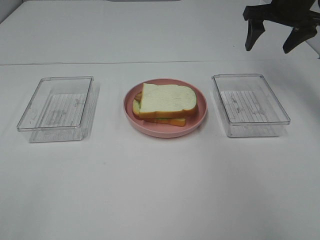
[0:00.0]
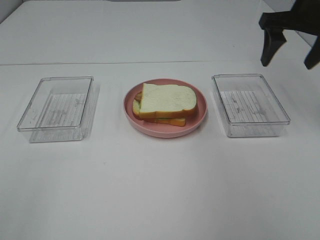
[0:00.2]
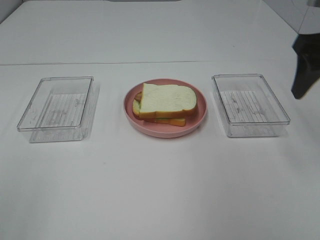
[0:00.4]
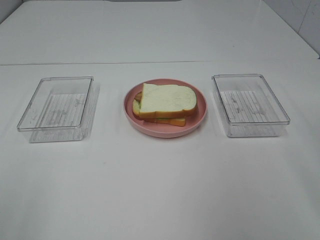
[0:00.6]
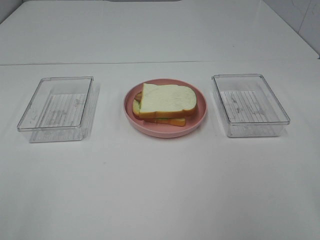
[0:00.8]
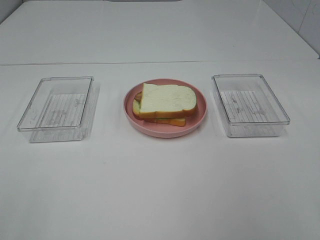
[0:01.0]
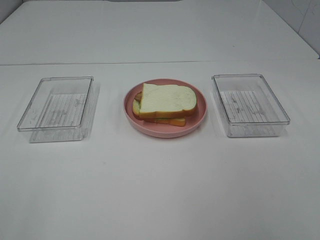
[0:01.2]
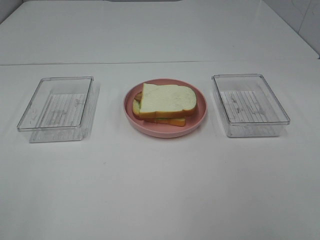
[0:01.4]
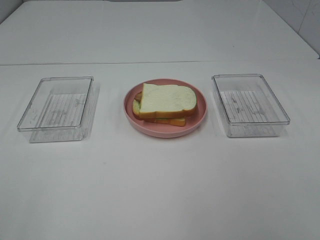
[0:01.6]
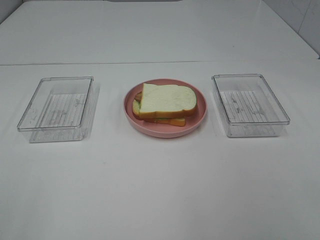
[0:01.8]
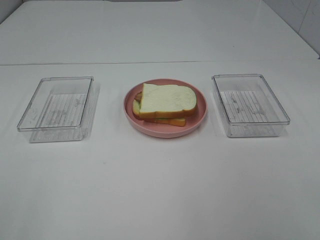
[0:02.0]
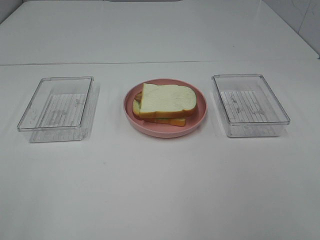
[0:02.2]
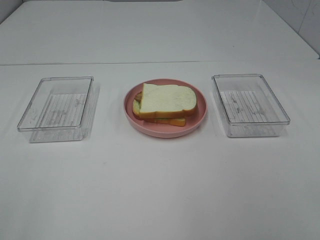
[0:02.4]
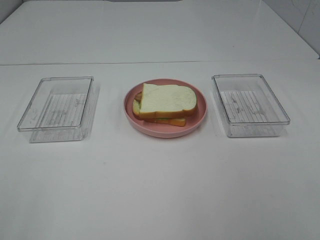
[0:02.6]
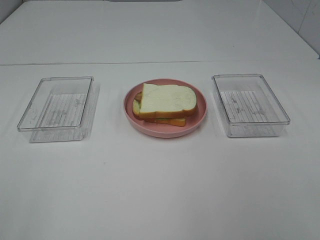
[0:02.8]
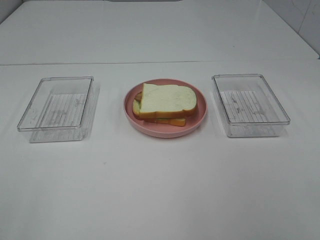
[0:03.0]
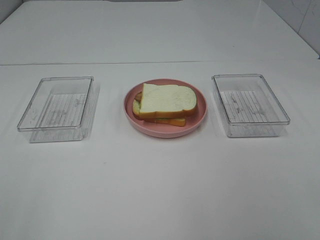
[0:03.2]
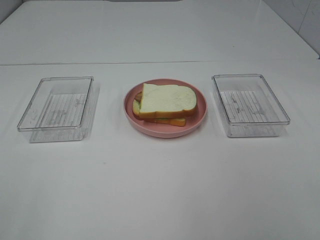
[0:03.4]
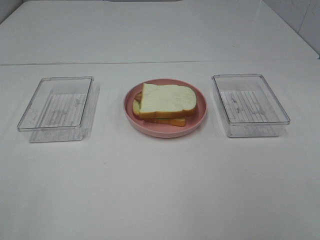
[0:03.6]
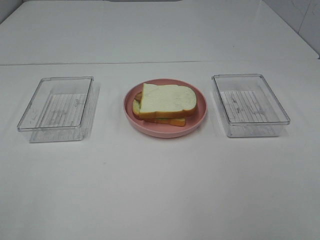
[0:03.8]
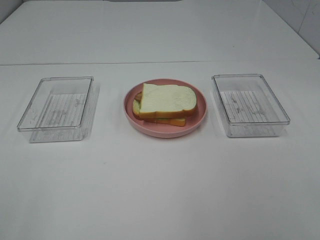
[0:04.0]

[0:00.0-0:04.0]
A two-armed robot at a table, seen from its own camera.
Task of the whole recording: Make sandwiches.
0:00.0 to 0:01.4: The right gripper moves backward, roughly 40 cm.
0:02.6 to 0:04.0: Neither gripper changes place.

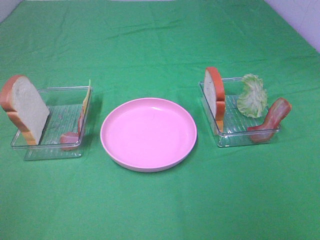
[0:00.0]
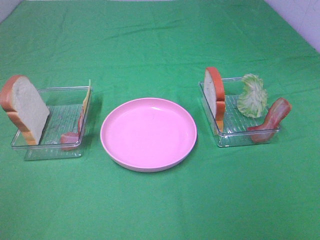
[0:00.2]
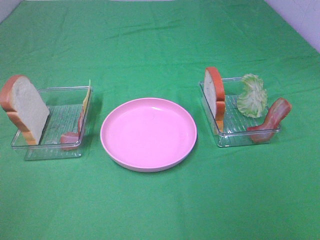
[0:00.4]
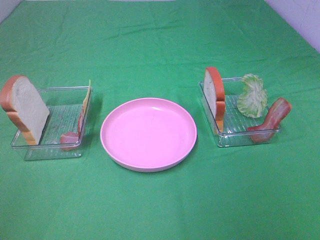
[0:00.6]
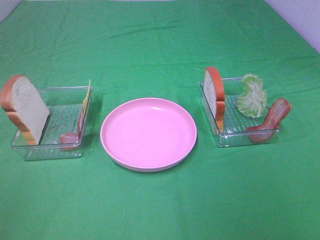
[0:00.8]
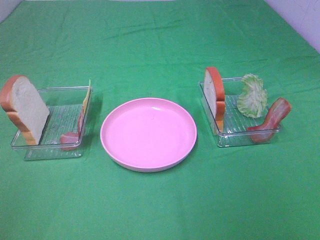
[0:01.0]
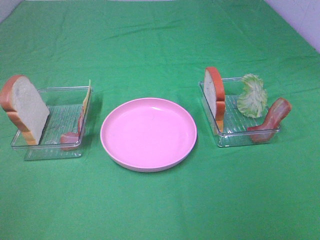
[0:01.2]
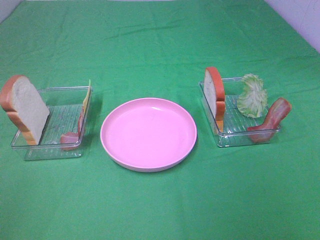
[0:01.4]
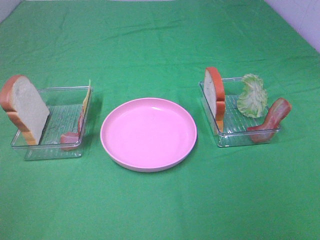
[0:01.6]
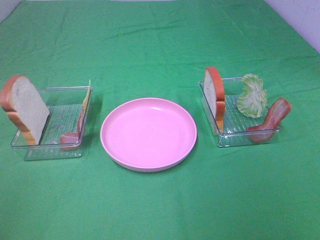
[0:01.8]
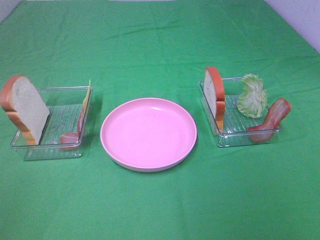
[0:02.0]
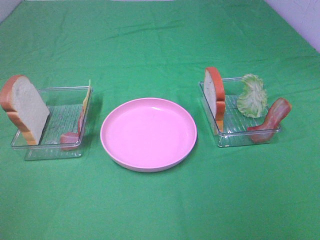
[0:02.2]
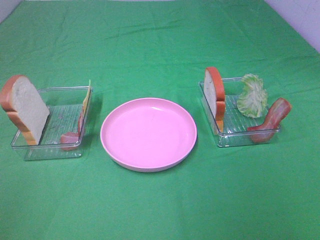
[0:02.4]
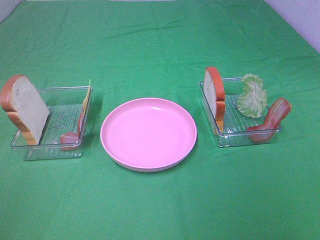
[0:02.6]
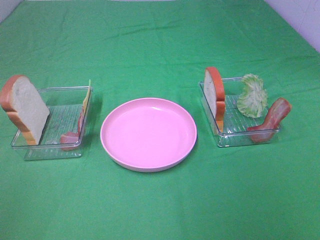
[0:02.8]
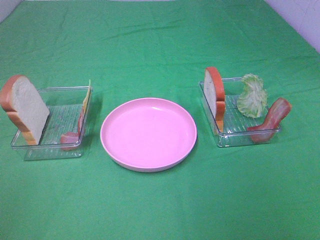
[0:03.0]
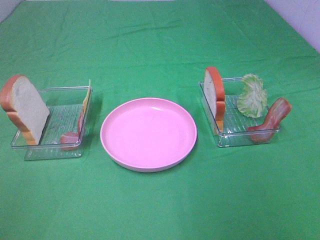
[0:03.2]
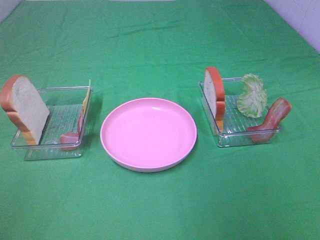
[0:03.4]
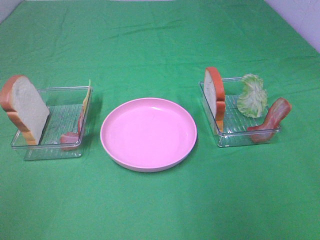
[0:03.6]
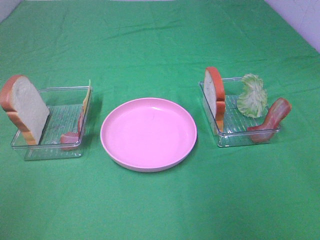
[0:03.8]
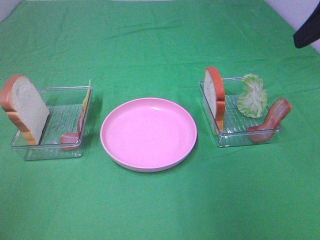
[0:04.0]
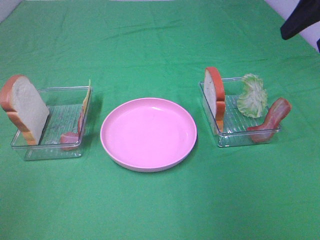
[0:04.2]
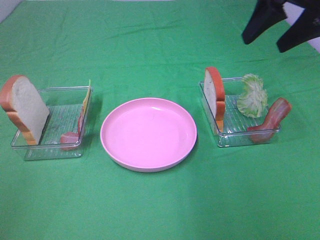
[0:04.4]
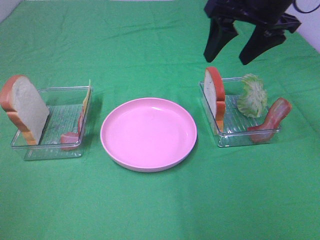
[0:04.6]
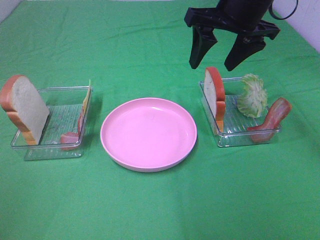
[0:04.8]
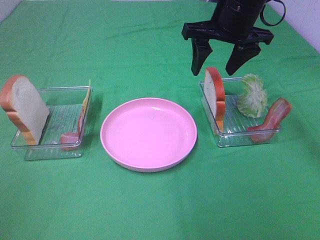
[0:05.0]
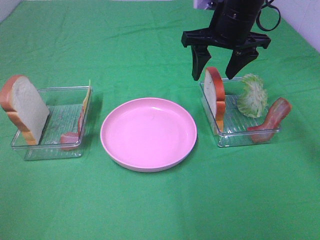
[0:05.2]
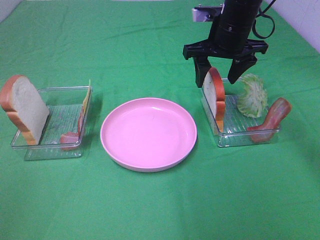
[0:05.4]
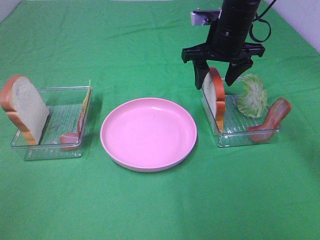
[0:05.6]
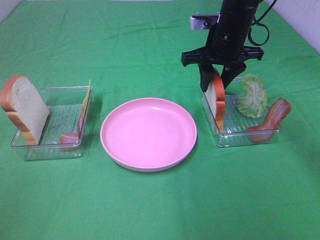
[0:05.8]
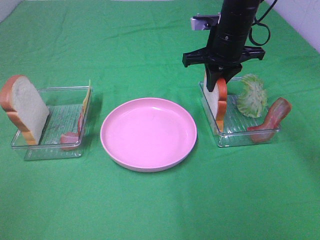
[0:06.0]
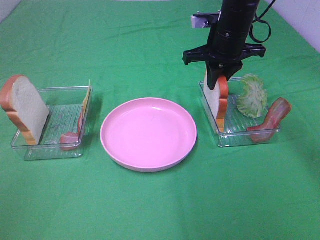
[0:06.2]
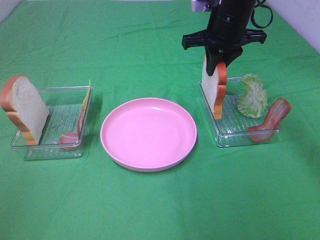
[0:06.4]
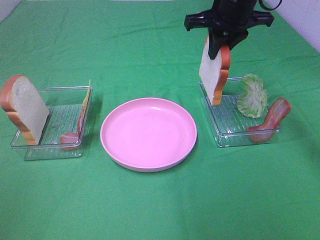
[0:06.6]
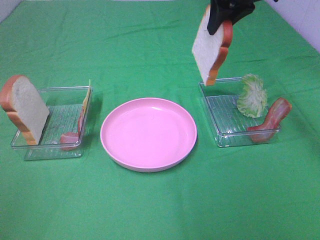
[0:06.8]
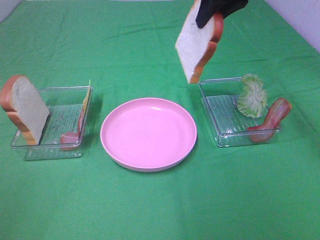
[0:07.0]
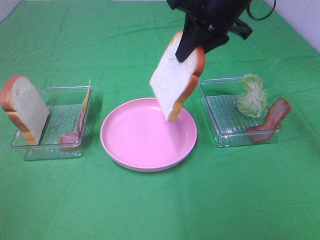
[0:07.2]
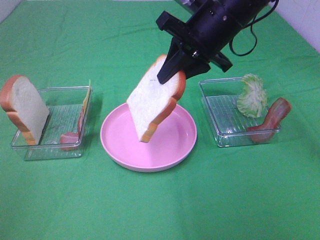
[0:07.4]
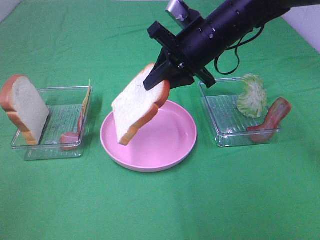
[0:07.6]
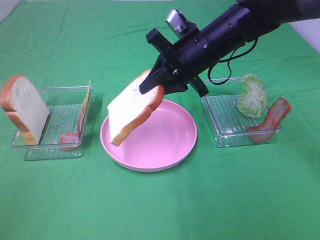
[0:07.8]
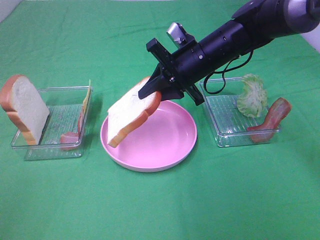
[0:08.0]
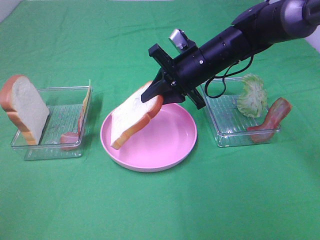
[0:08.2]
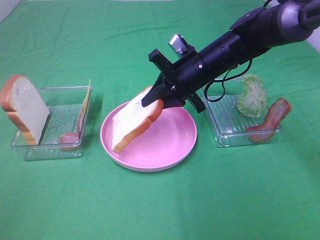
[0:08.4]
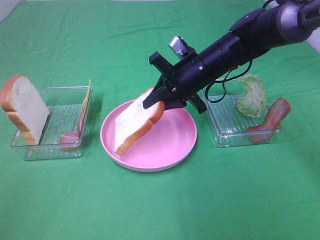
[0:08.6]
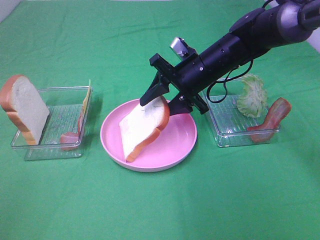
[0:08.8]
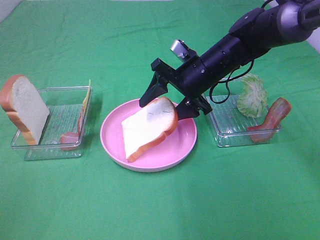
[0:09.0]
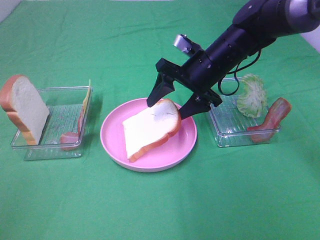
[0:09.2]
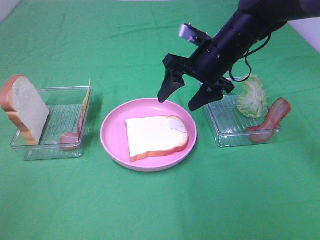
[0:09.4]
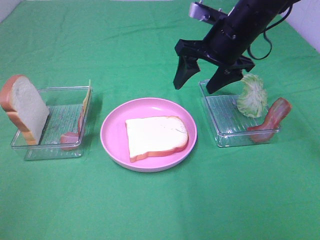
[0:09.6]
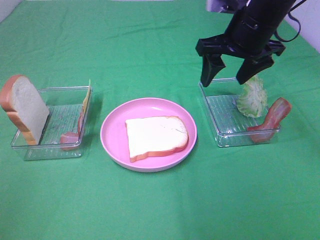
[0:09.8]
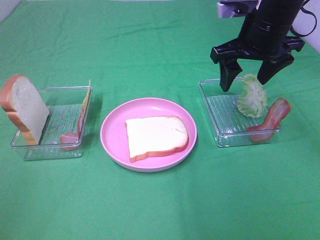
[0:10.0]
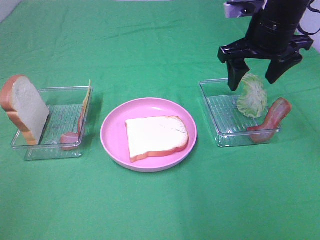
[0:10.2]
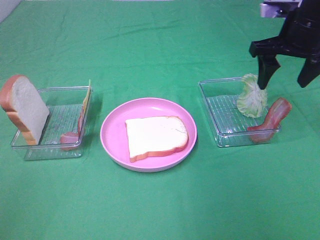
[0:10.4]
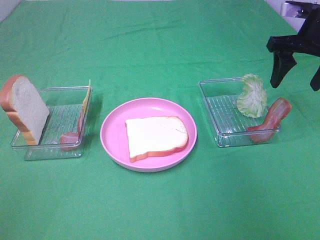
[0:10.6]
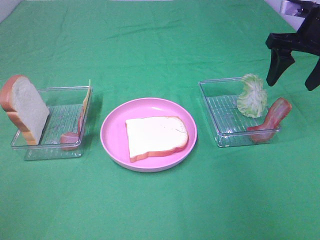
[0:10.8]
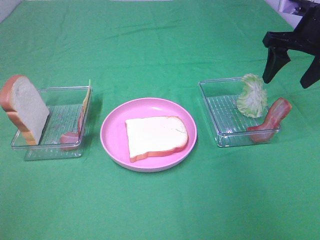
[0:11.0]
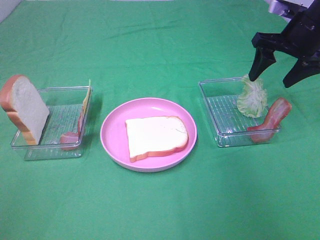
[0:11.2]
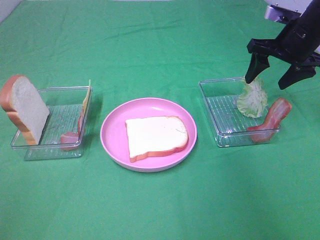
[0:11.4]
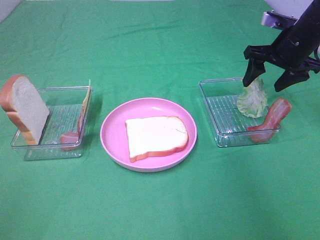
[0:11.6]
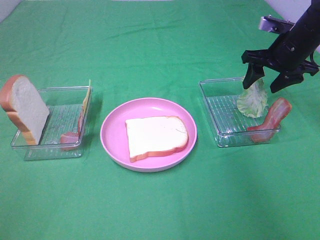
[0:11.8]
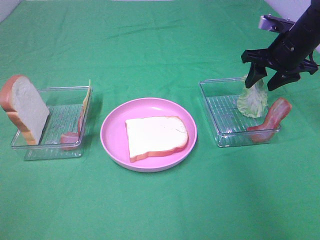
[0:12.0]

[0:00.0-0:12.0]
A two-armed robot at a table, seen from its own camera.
Task of the whole recording: Make sandwiches.
Step, 0:00.0 to 0:06.0: Right hand:grab the bread slice.
Step, 0:06.2 to 0:09.4: Right hand:place the bread slice on the plate.
0:00.0 to 0:03.0: Both grippers stay put.
0:03.0 to 0:04.4: The right gripper heads forward, covering some 35 cm.
0:04.4 to 0:06.0: The right gripper goes roughly 20 cm downward, forward and to the left, and closes.
0:06.0 to 0:07.6: The right gripper travels backward by roughly 5 cm, and goes upward and returns, some 15 cm each way.
0:07.6 to 0:09.0: The right gripper is displaced downward by approximately 10 cm, and opens.
0:09.0 to 0:10.4: The right gripper moves to the right and upward, some 20 cm.
0:10.4 to 0:12.0: The right gripper is displaced downward and forward by roughly 10 cm.

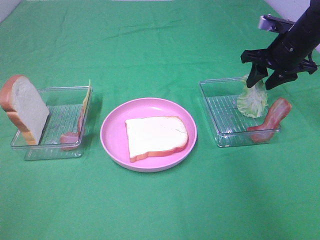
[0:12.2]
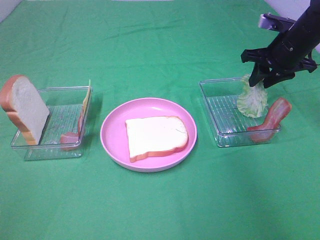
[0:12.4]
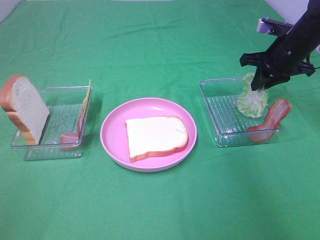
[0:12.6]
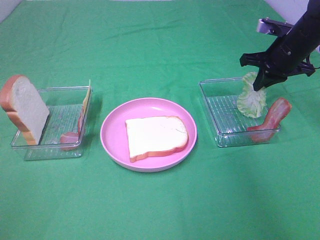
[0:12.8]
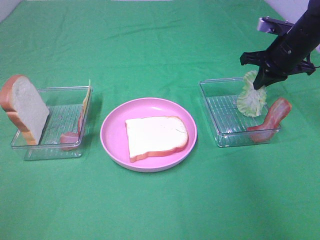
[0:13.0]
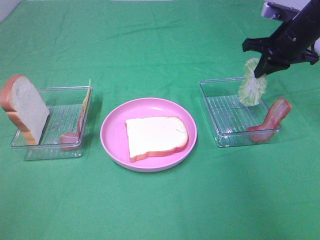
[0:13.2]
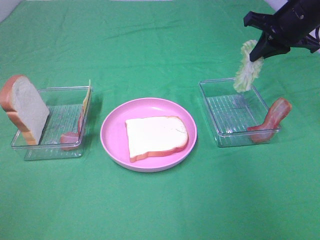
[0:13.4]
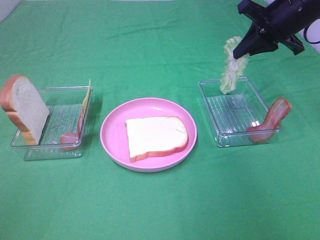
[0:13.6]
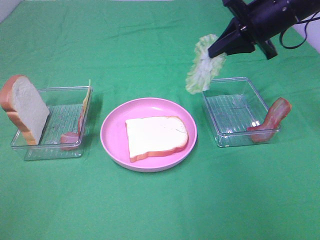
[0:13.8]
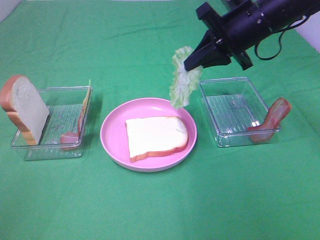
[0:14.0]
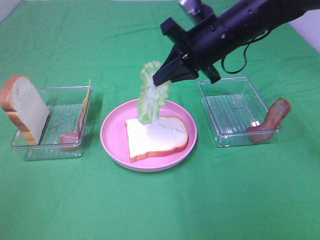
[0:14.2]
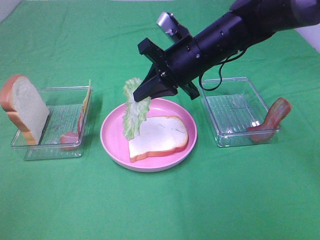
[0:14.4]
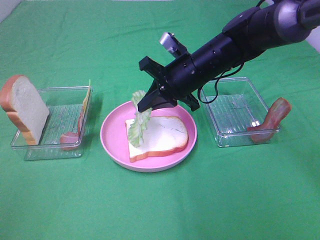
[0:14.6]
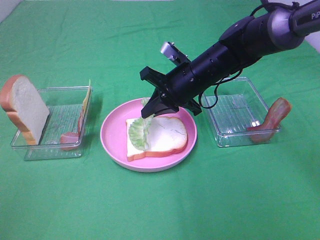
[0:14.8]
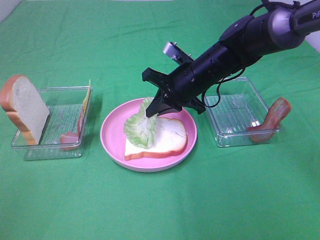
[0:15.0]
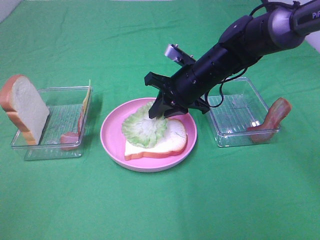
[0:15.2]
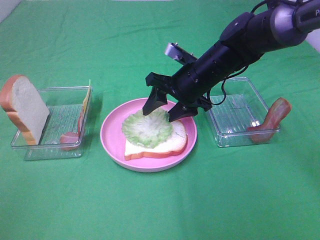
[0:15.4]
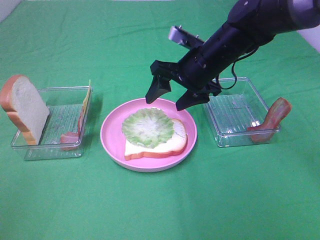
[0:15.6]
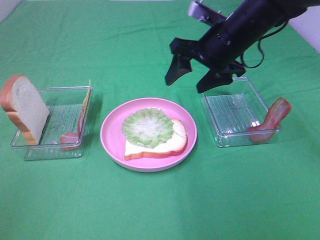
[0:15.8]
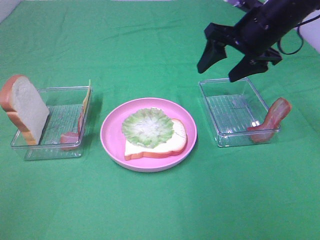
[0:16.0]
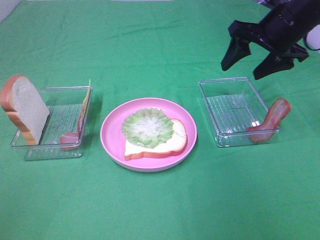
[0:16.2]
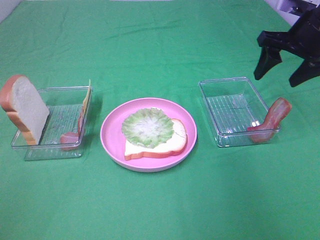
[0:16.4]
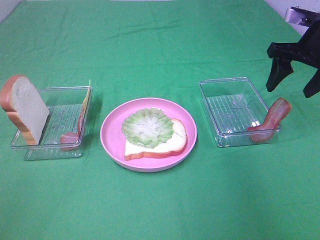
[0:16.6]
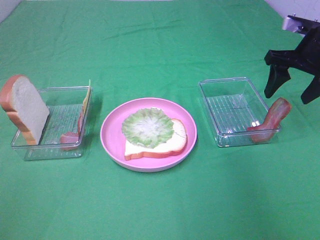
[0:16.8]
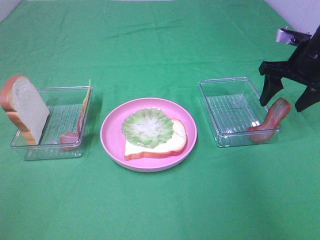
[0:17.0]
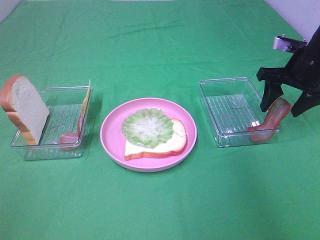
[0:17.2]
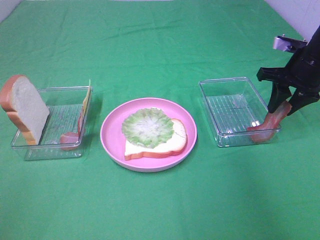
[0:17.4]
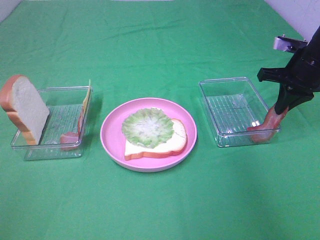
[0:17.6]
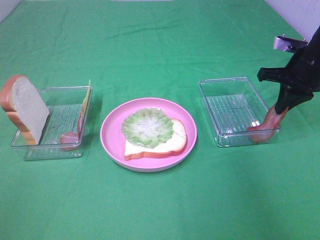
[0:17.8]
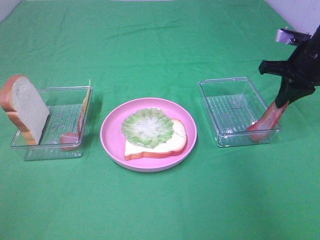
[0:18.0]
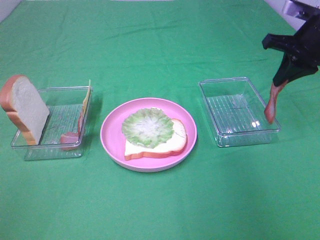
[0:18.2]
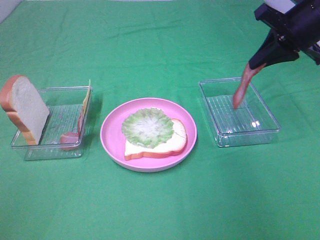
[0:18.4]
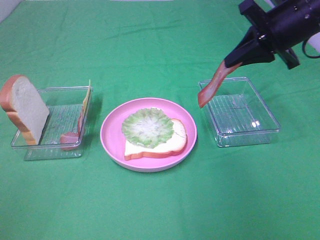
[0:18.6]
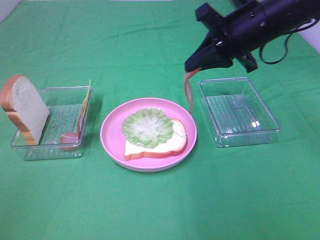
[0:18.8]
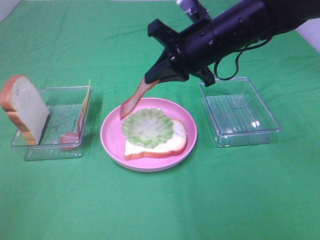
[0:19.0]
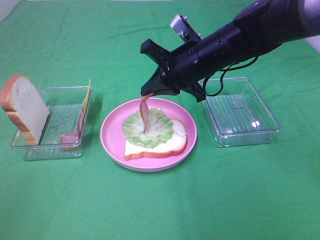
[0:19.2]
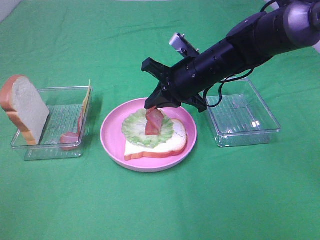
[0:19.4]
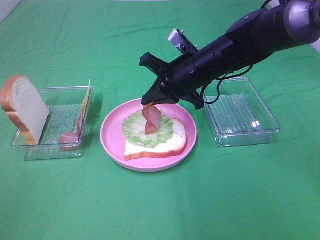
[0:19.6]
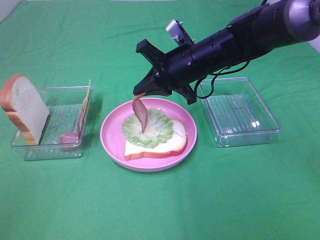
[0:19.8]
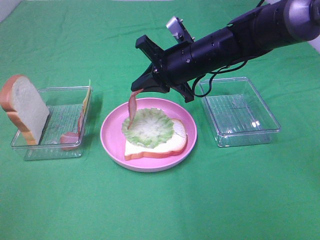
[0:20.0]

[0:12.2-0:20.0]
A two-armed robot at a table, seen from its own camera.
Task of the whole recording: Make sandwiches.
Step, 0:13.0 to 0:15.4: Right hand:place the lettuce slice on the bread slice.
Step, 0:15.6 to 0:18.0: Right hand:grab the bacon.
0:12.2 to 0:13.8: The right gripper heads to the left and upward, covering some 10 cm, and closes its fingers.
0:13.8 to 0:15.4: The right gripper moves downward and to the left, some 15 cm, and opens up.
0:15.4 to 0:16.8: The right gripper is displaced to the right by approximately 20 cm.
0:16.8 to 0:18.4: The right gripper ends up roughly 5 cm from where it was, and closes.
0:18.4 to 0:20.0: The right gripper shifts about 20 cm to the left and downward.
